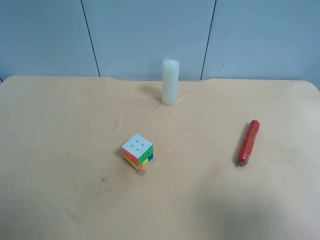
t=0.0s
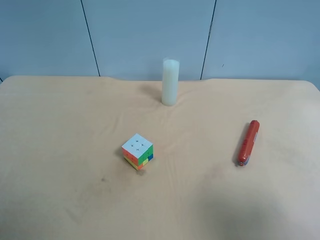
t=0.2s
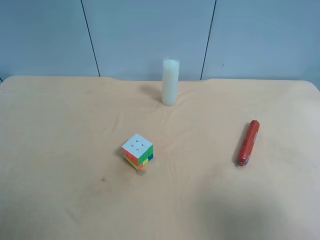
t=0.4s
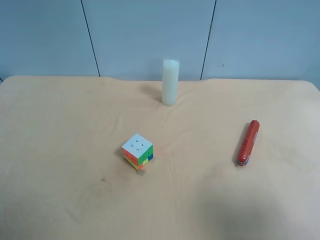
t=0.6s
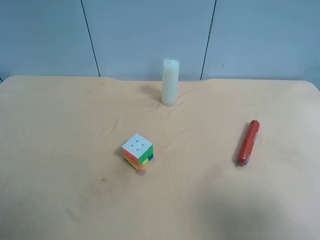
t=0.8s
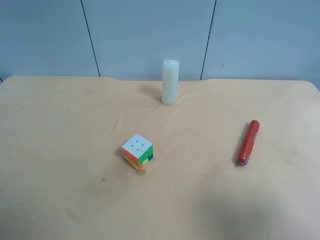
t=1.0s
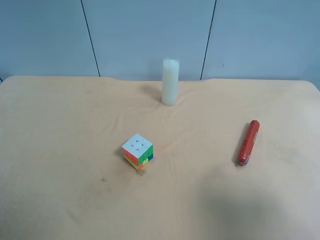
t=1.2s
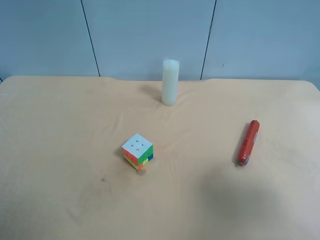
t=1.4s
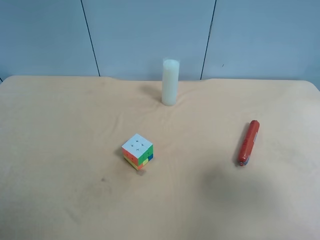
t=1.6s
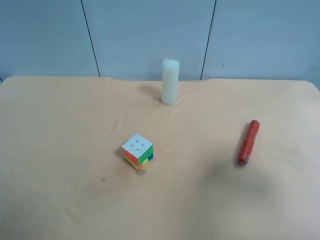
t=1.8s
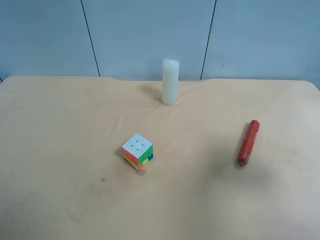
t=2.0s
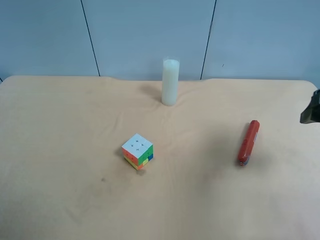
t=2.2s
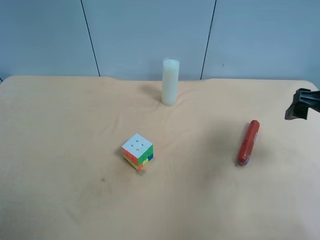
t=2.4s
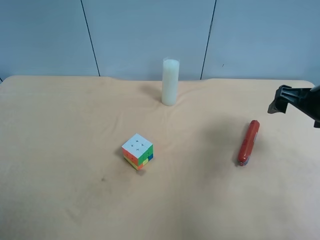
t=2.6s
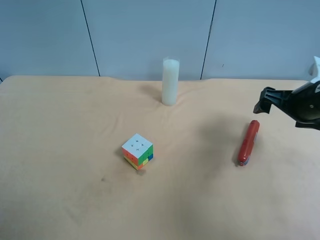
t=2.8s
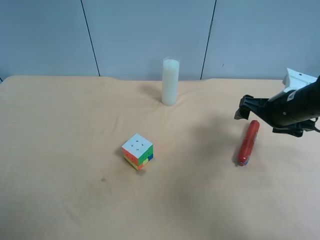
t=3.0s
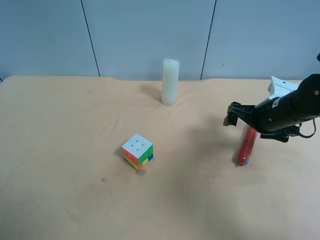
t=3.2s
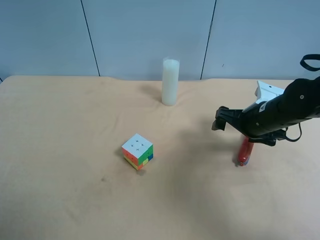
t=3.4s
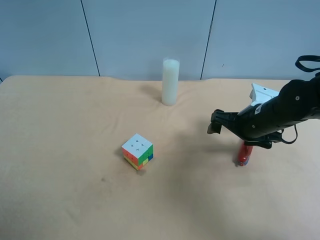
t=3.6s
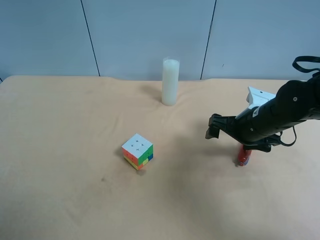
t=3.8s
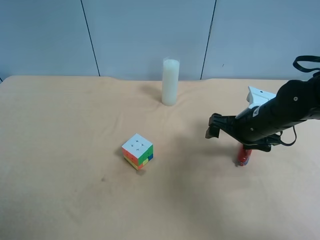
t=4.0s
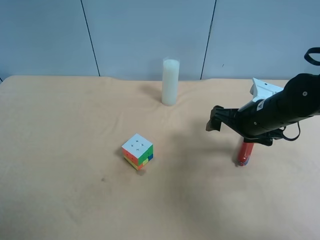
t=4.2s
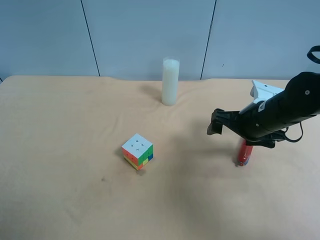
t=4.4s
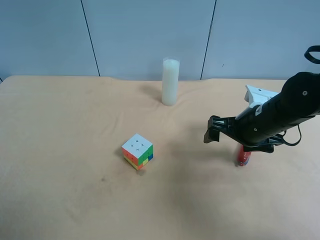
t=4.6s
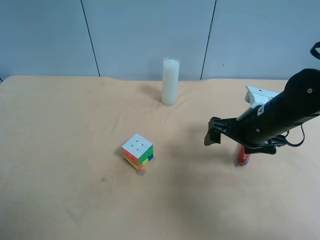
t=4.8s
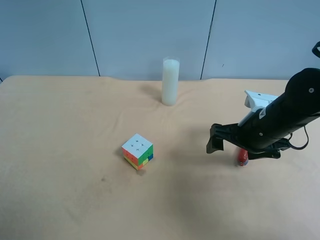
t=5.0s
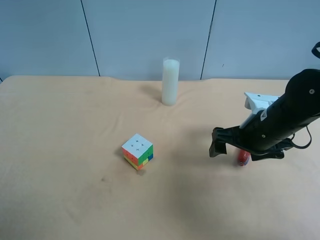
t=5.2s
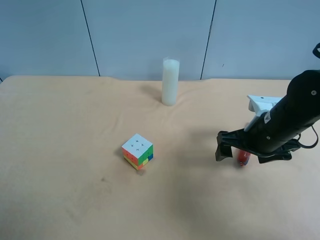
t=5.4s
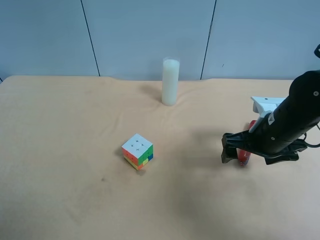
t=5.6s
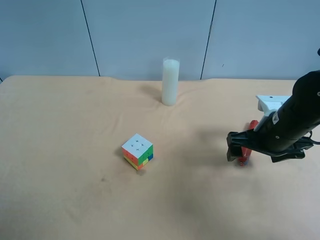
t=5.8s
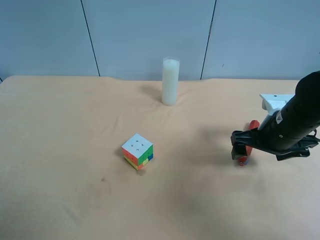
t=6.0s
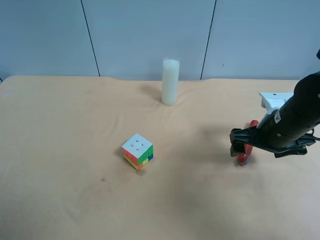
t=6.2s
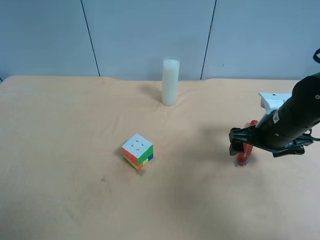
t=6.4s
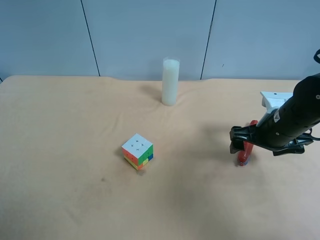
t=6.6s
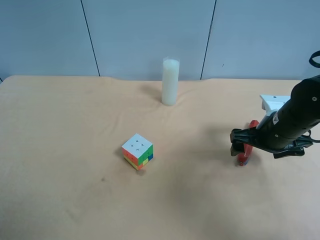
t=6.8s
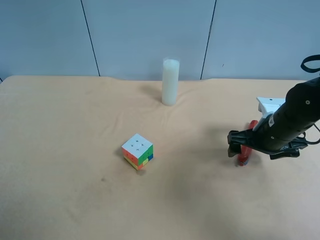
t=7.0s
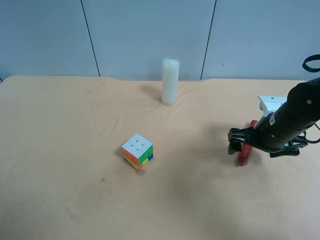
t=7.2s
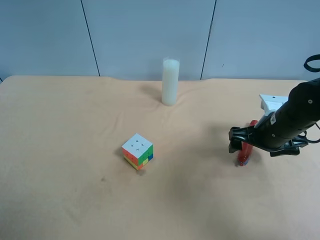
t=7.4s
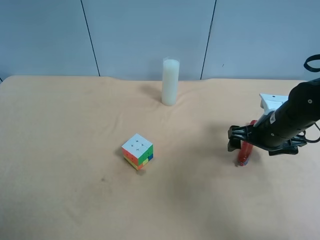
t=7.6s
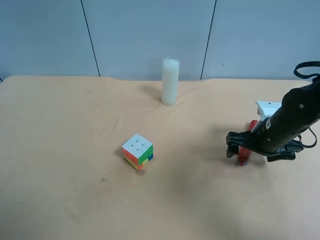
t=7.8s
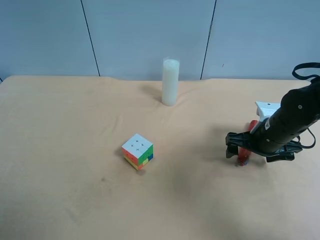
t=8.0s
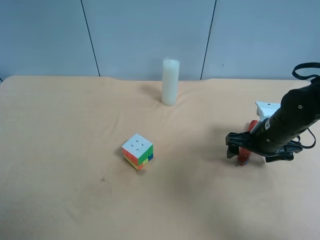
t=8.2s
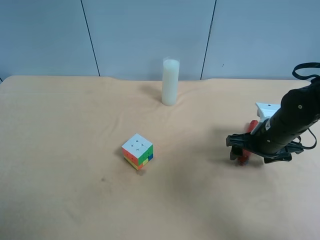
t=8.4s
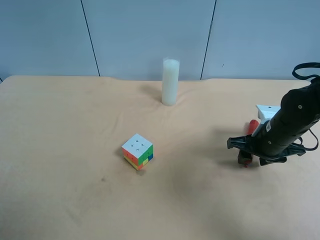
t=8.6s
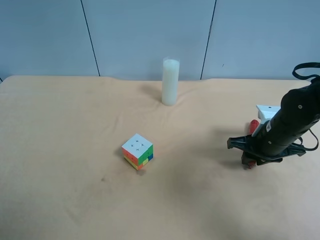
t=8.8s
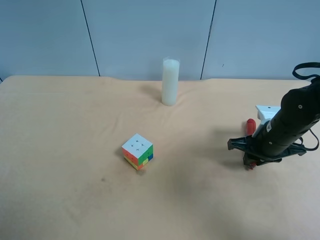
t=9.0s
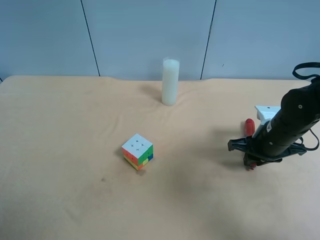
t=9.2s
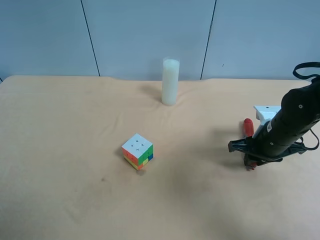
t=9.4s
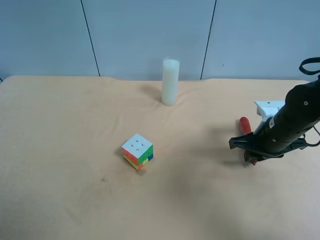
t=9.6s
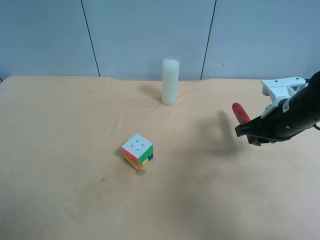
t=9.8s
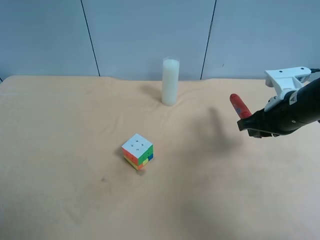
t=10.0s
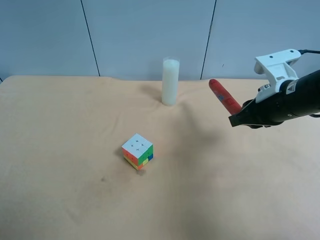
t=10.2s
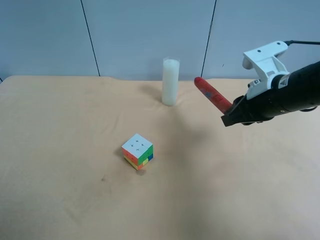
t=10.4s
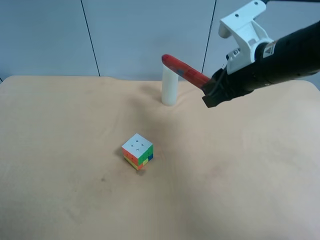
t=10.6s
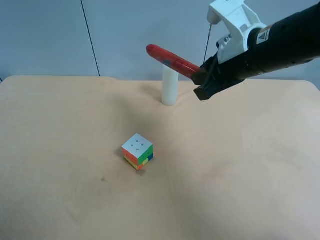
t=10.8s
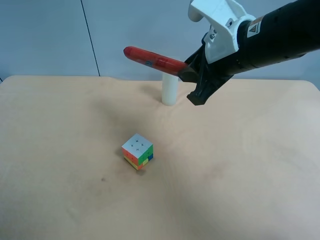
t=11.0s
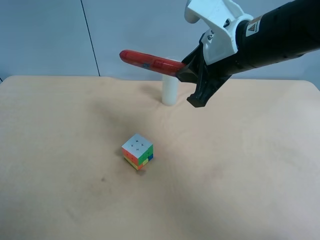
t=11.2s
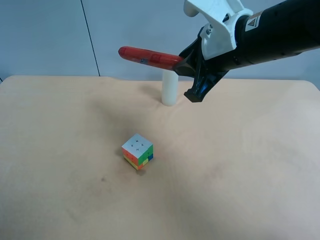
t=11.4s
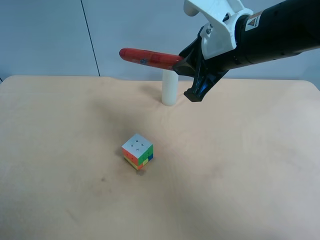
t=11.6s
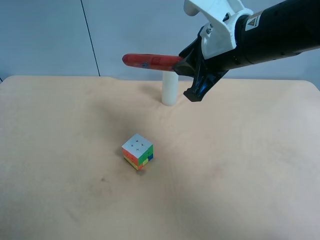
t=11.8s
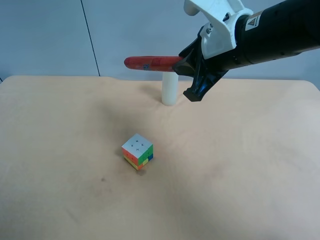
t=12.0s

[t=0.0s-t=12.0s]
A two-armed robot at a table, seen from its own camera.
Task of the whole recording: use the right gripper to pick up the item and transfer it from the right gripper to the left gripper.
t=0.0s to t=1.6s: The right gripper heads forward, covering some 10 cm.
t=1.6s to t=3.0s: The right gripper travels forward and downward by some 25 cm.
t=3.0s to t=4.4s: The right gripper moves to the left, roughly 5 cm.
t=4.4s to t=7.6s: The grippers stay close to where they were, moving slightly.
t=7.6s to t=9.0s: The right gripper closes its fingers.
t=9.0s to t=10.4s: The right gripper goes some 15 cm upward and to the left.
t=10.4s to t=12.0s: The right gripper is displaced to the left and upward by about 10 cm.

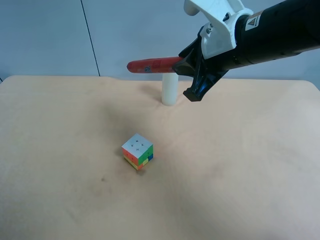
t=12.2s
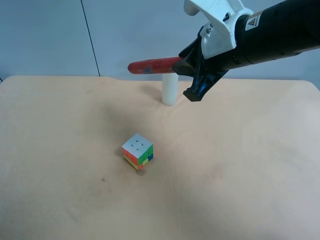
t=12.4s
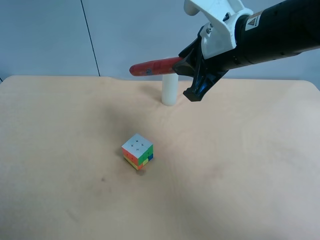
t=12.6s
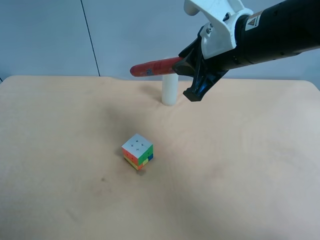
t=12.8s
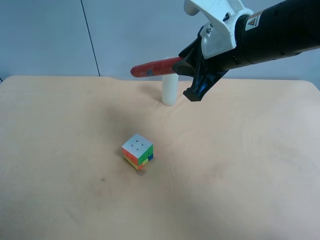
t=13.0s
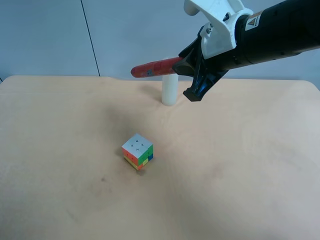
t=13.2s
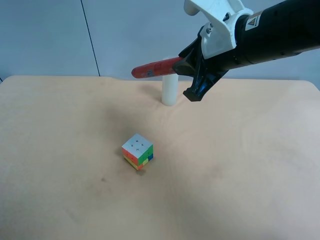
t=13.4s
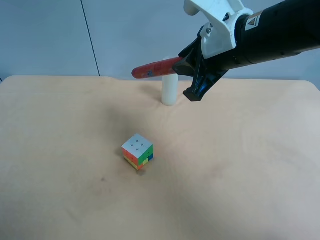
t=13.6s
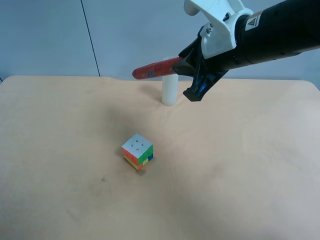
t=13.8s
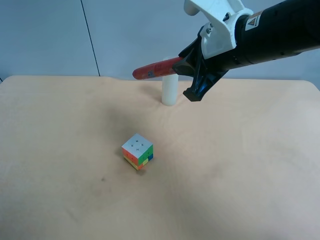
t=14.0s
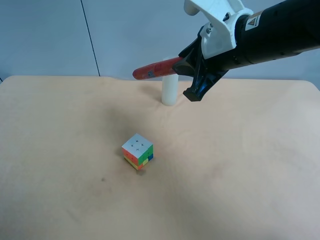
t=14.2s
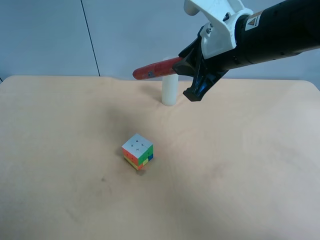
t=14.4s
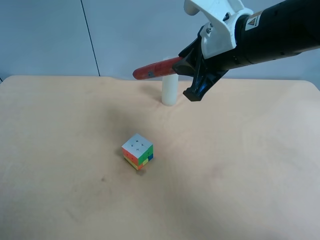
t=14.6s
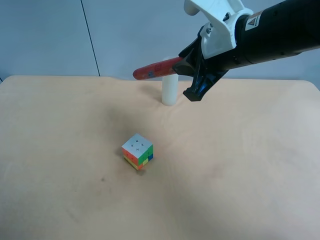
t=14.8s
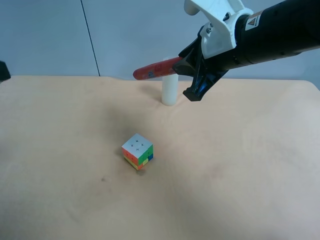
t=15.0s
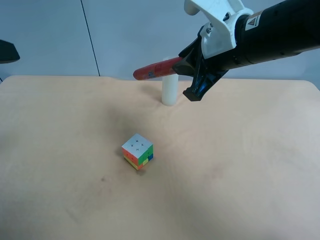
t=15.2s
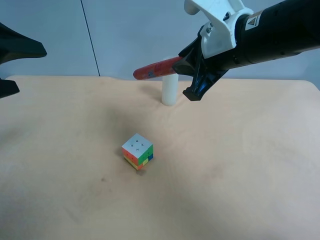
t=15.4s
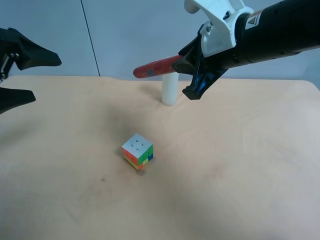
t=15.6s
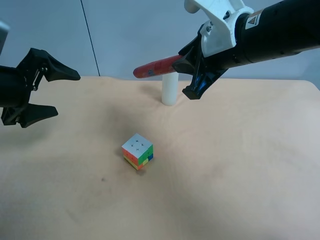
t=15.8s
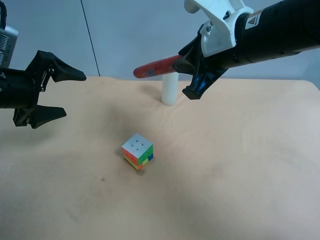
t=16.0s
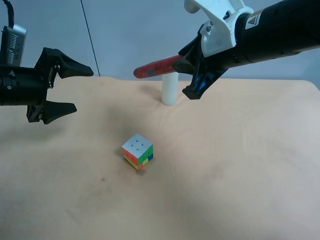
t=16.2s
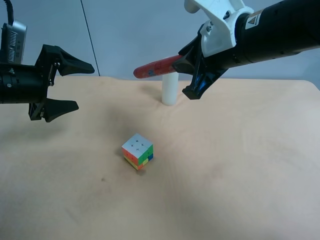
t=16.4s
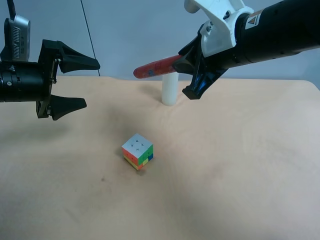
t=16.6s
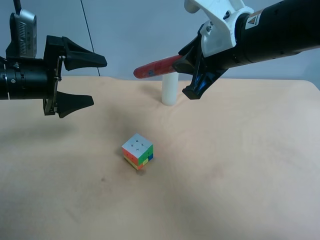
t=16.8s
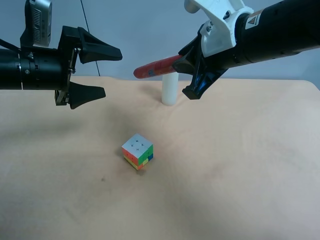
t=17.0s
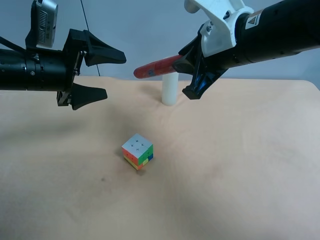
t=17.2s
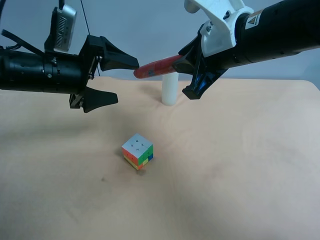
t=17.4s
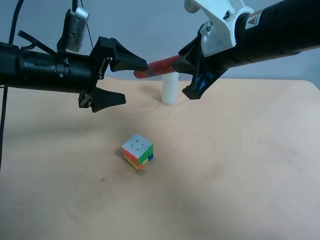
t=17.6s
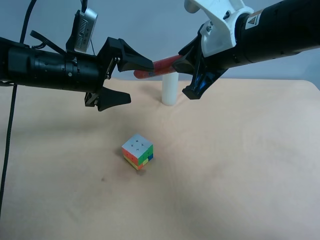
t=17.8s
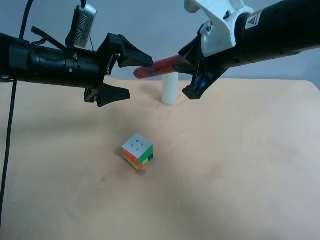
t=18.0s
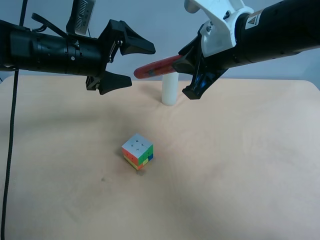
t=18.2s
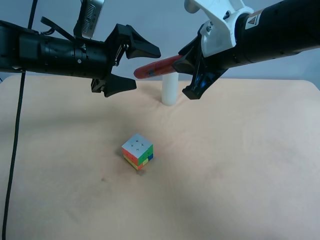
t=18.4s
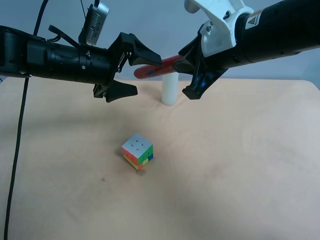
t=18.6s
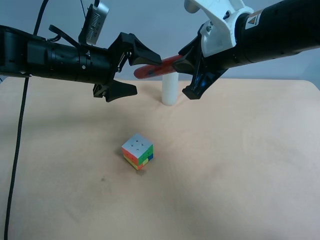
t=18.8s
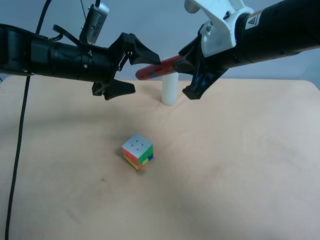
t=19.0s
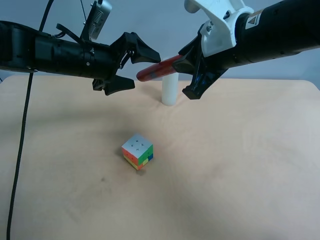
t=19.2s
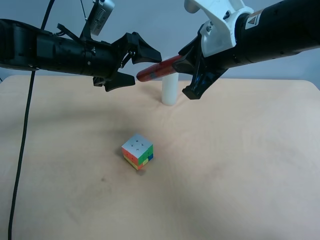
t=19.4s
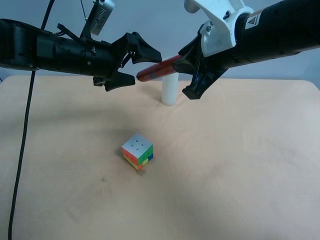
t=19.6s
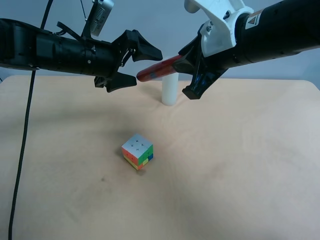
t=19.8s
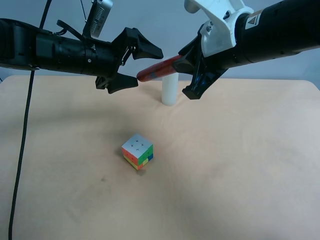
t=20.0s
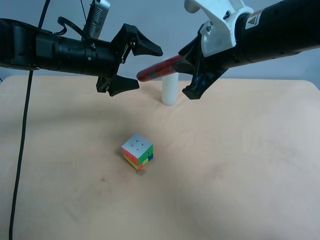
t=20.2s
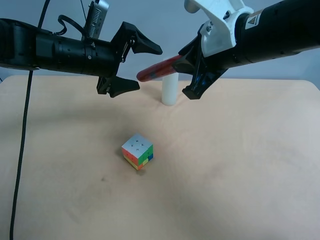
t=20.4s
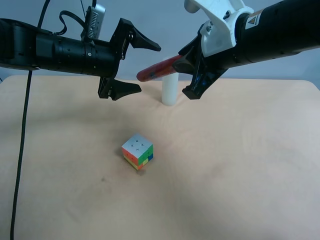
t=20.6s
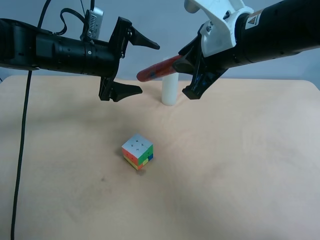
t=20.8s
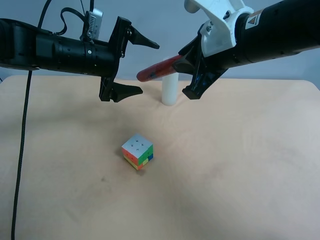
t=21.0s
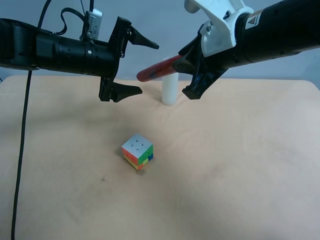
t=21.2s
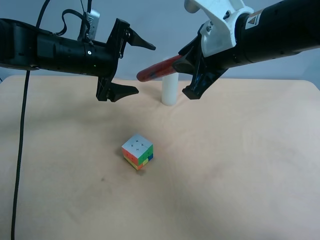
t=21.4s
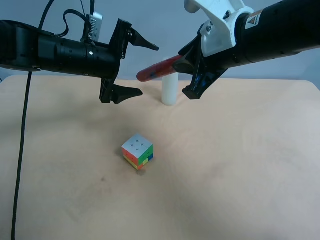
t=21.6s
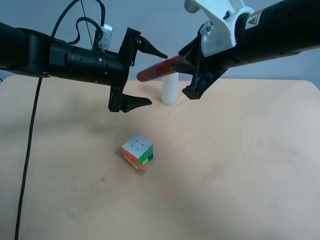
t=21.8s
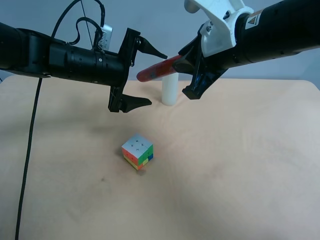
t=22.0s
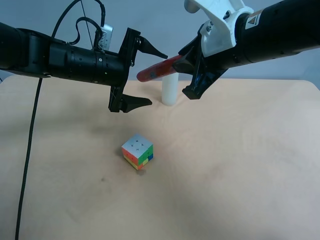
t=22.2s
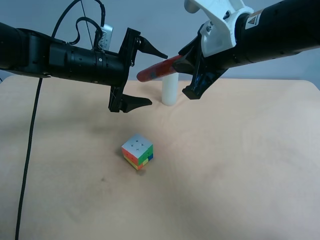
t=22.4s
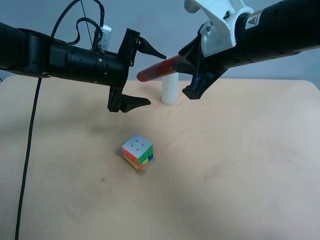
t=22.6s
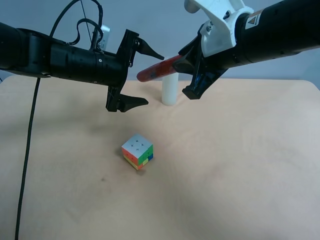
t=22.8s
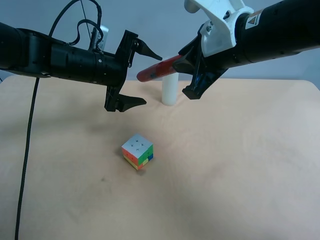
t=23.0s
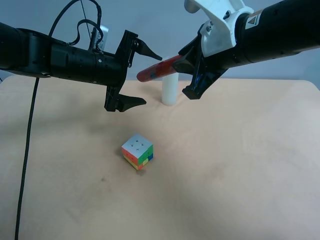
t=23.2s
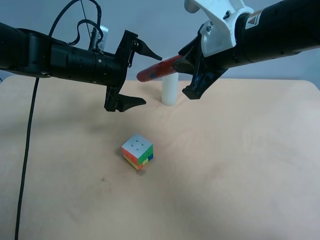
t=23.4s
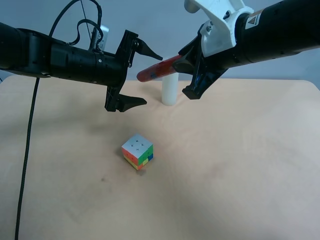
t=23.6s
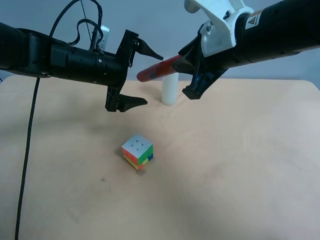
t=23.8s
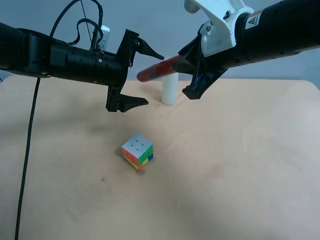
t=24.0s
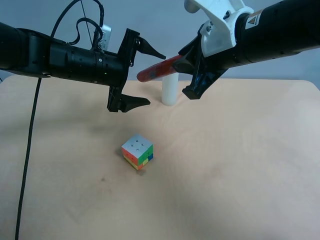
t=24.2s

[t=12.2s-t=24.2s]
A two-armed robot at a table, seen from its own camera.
Task of the whole recording: use the right gripper to pick up the item and transfer it from the right gripper to the left gripper.
t=12.2s to t=13.8s: Neither gripper changes place.
t=15.2s to t=16.6s: The left gripper heads forward and downward, covering about 15 cm.
t=16.6s to t=18.2s: The left gripper shifts some 10 cm to the right.
t=18.2s to t=19.8s: The grippers move only a little.
t=21.2s to t=22.6s: The grippers make only small movements.
t=22.6s to t=24.2s: Both grippers stay put.
